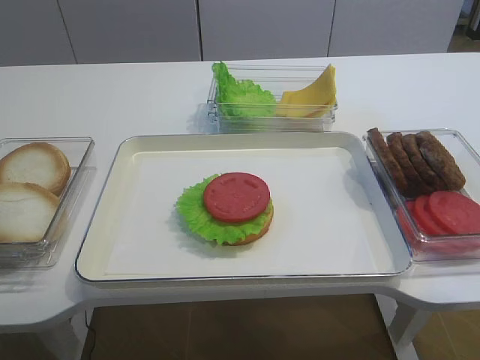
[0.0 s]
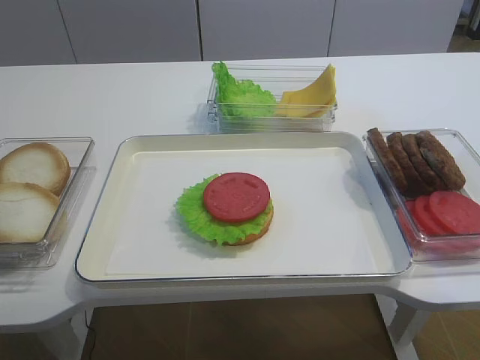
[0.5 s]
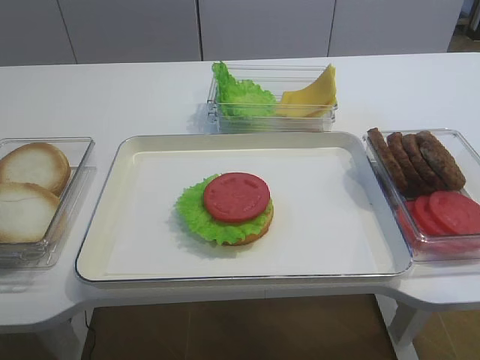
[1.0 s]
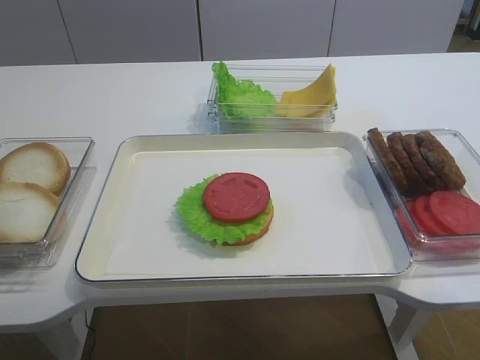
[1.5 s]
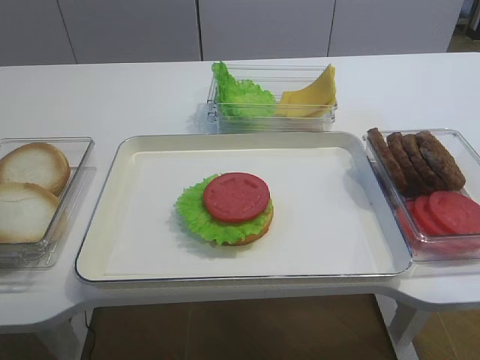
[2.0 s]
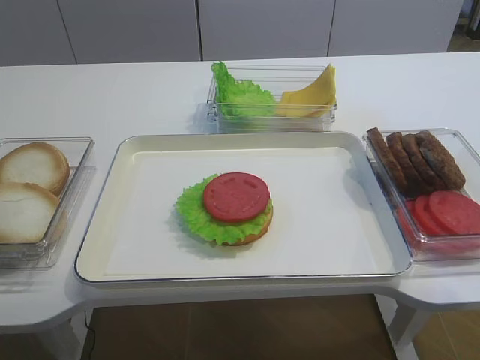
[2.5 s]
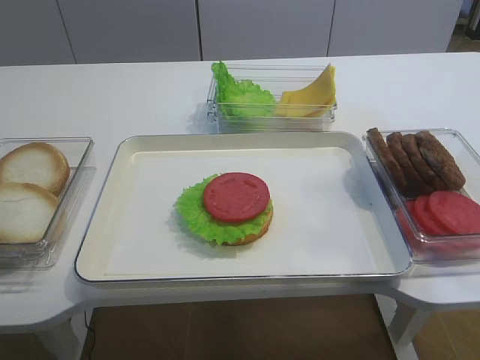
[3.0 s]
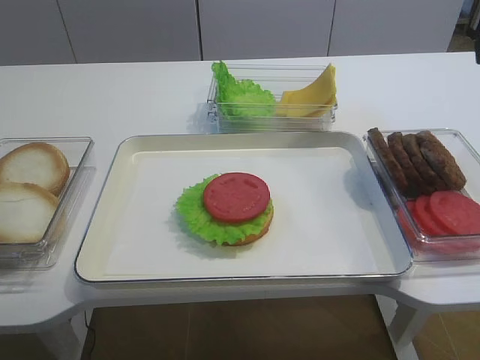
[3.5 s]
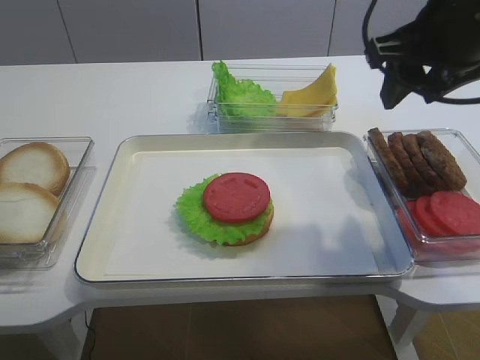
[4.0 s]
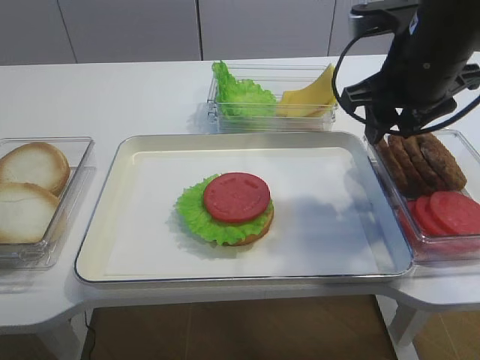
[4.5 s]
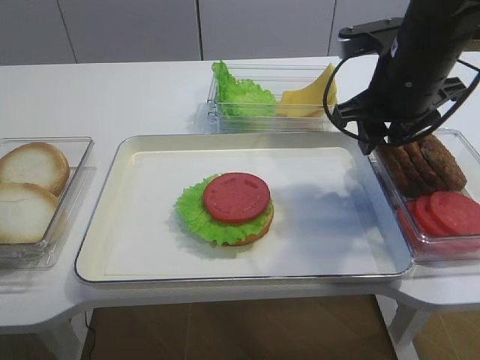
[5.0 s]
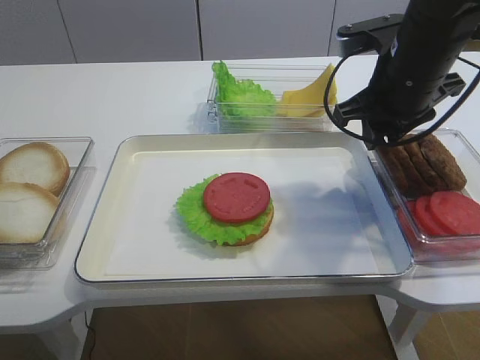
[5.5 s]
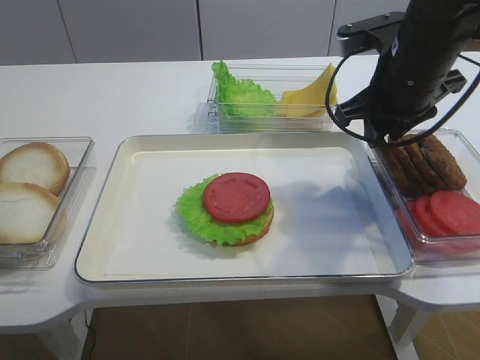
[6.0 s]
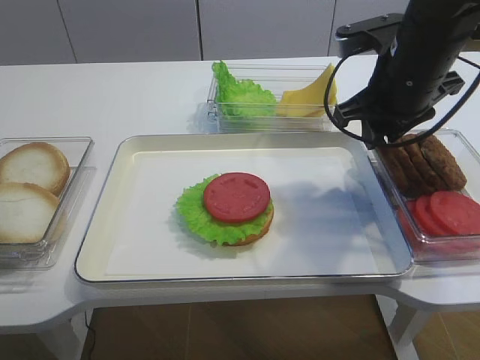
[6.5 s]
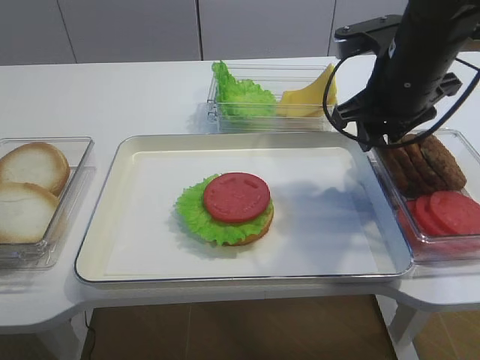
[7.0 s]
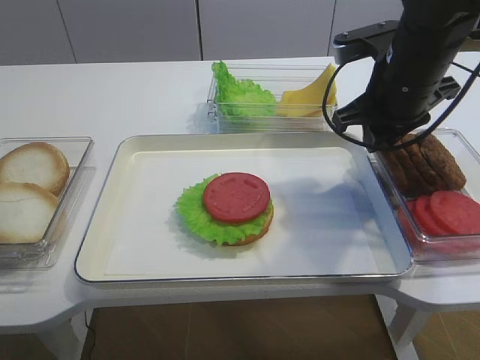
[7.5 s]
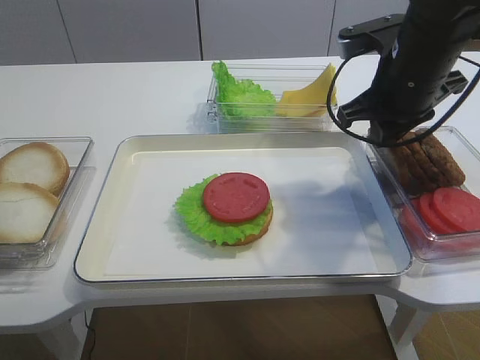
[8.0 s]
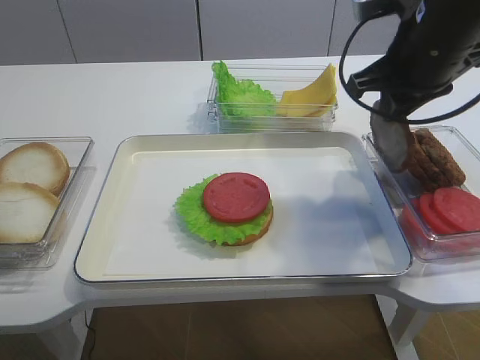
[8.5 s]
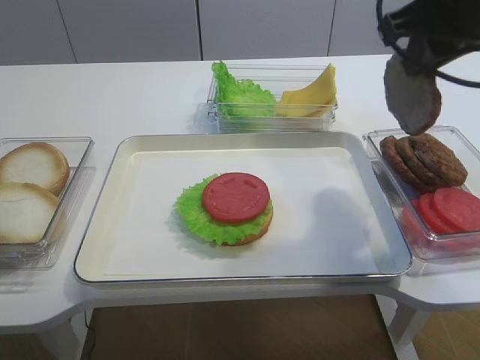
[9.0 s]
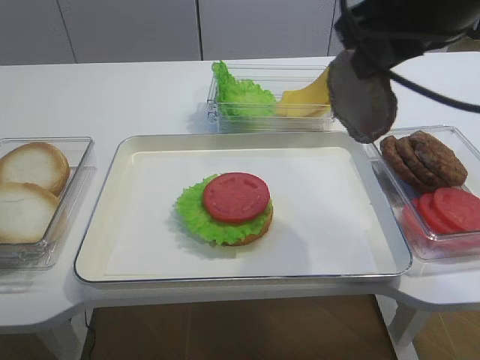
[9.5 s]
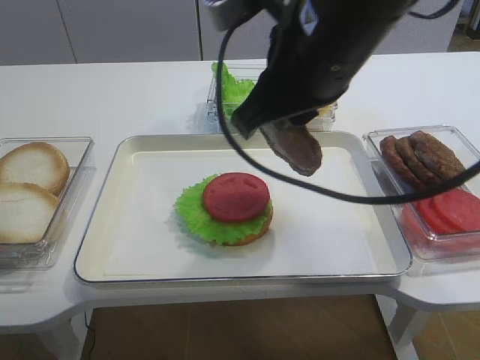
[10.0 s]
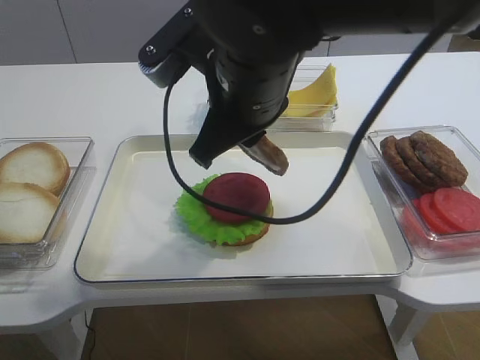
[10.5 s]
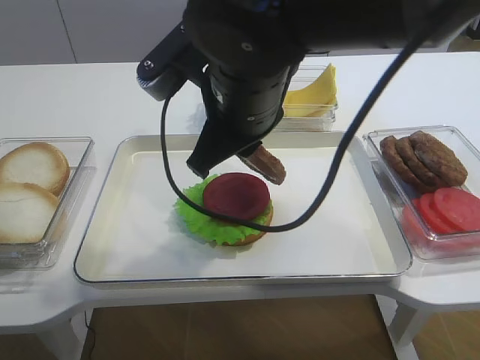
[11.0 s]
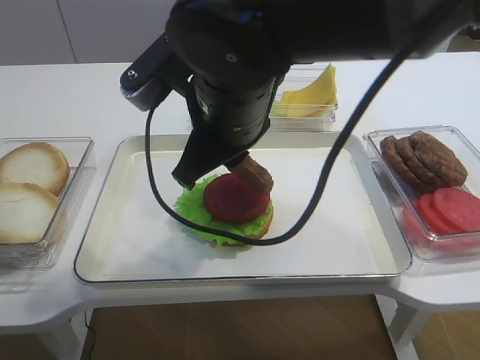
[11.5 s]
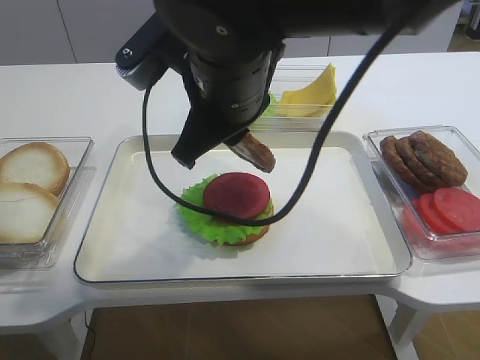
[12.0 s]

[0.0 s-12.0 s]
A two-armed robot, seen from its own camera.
Step, 0.0 to 8.5 s: Pick up the cutlet with the right gripper.
2.0 to 4.0 s: The right gripper moves forward, about 30 cm, and opens.
4.0 to 6.0 s: The right gripper goes roughly 10 cm downward and forward.
6.0 to 8.0 s: The two grippers keep their place.
8.0 to 10.0 s: The right gripper is displaced to the left, backward and upward by about 15 cm.
10.0 to 12.0 s: The right gripper travels to the left by approximately 5 cm.

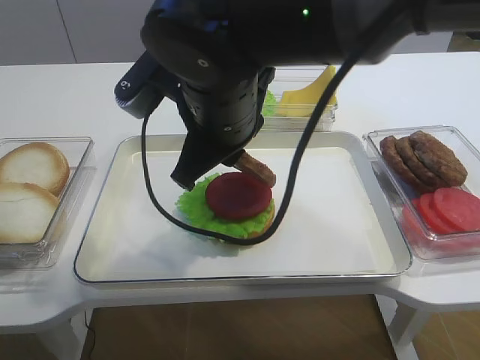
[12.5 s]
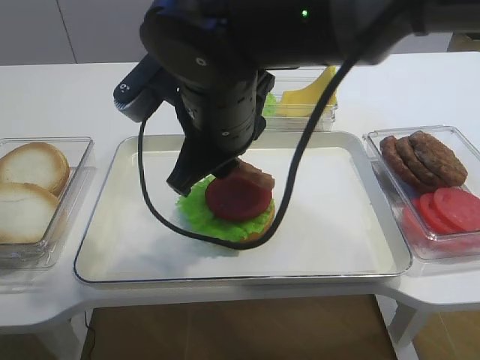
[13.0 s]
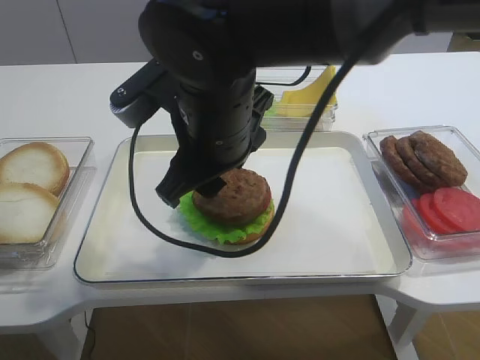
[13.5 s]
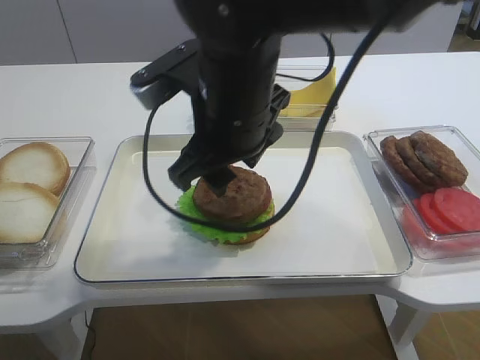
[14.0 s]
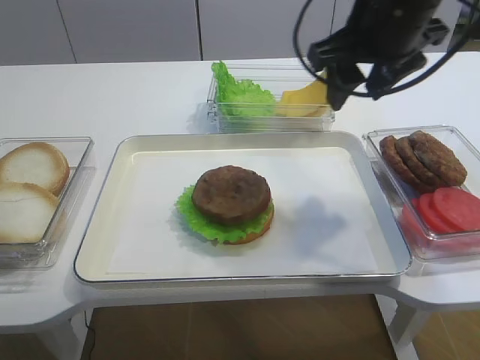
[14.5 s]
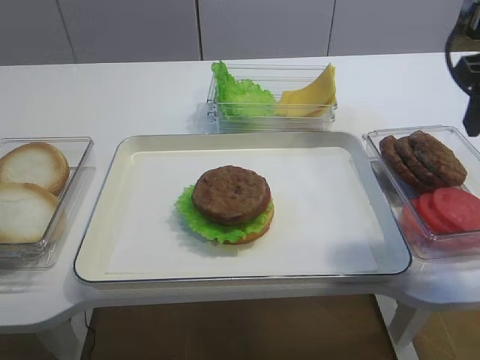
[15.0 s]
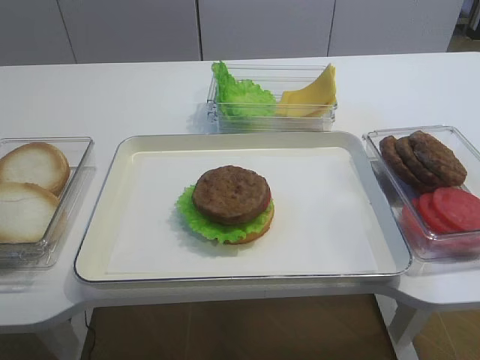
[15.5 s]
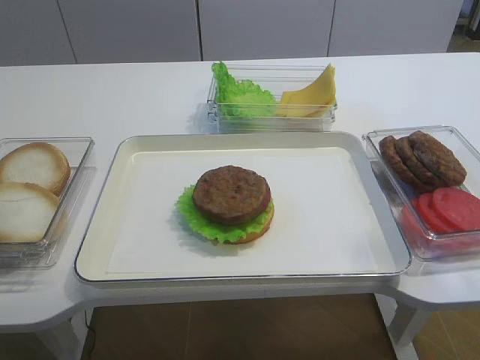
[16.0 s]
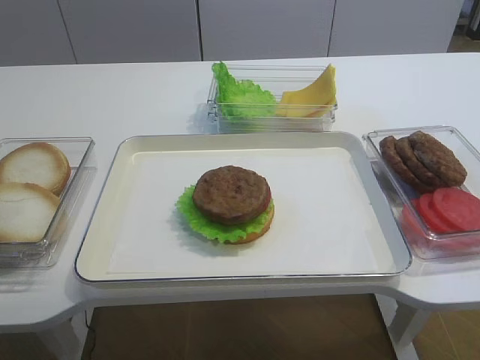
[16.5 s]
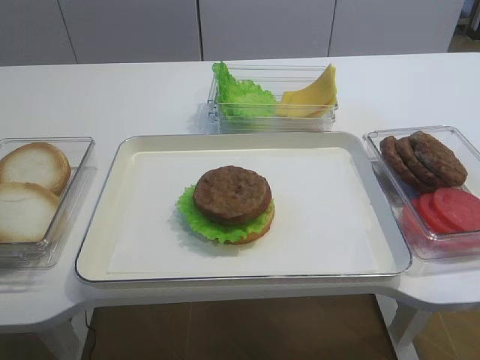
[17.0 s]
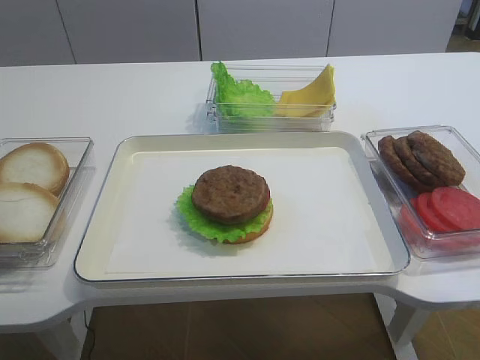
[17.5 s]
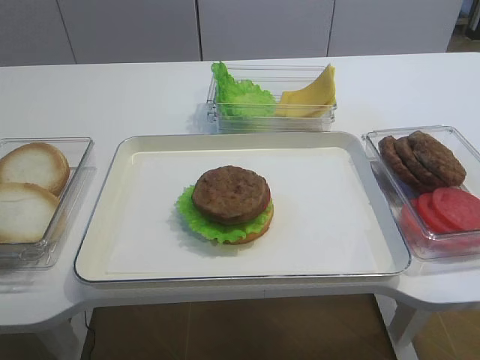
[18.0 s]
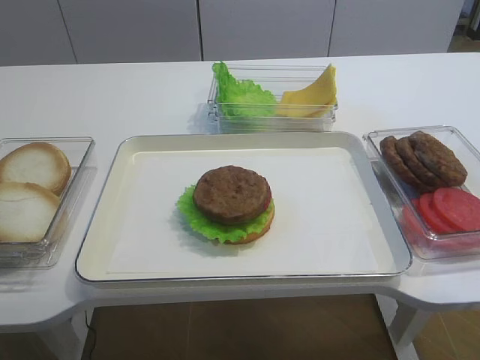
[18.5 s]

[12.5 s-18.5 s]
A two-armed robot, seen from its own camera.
12.5 to 14.5 s: The right gripper goes roughly 15 cm to the right and forward, and opens its fingers.
14.5 to 16.5 s: The right gripper heads backward and to the right, covering some 40 cm.

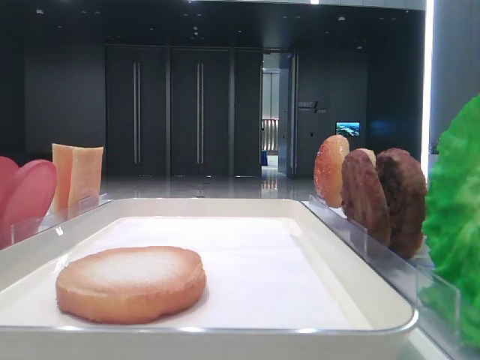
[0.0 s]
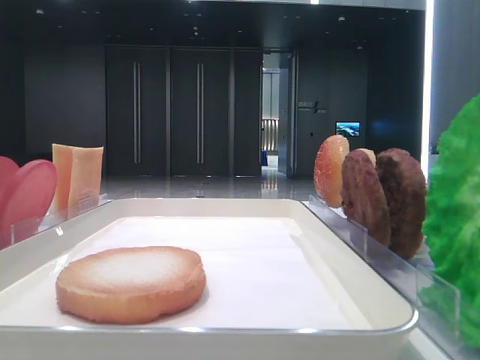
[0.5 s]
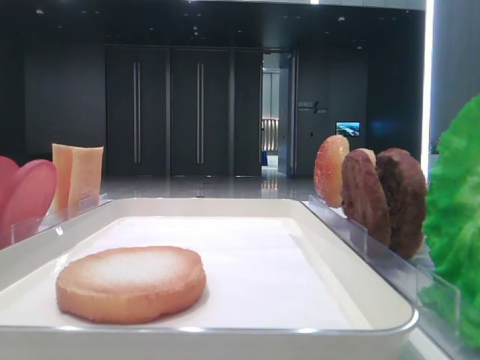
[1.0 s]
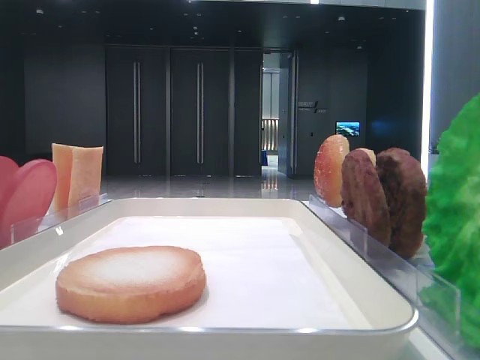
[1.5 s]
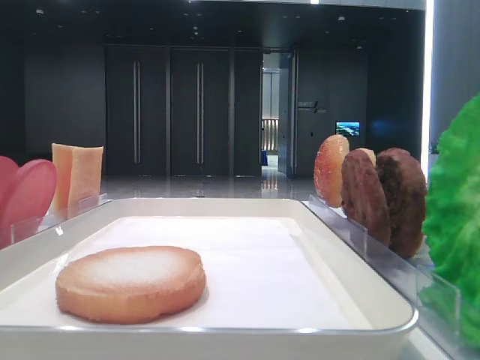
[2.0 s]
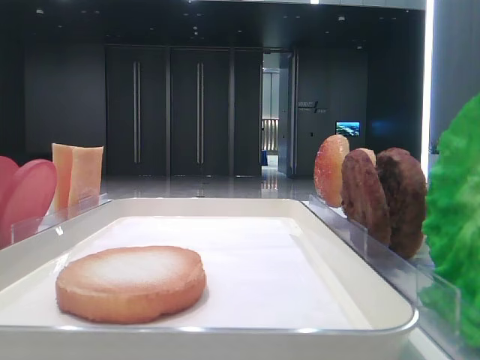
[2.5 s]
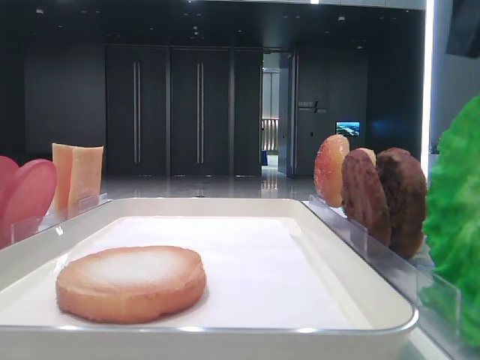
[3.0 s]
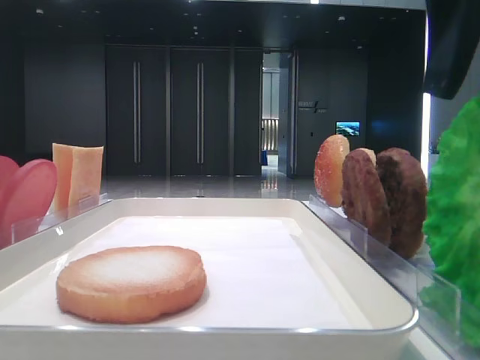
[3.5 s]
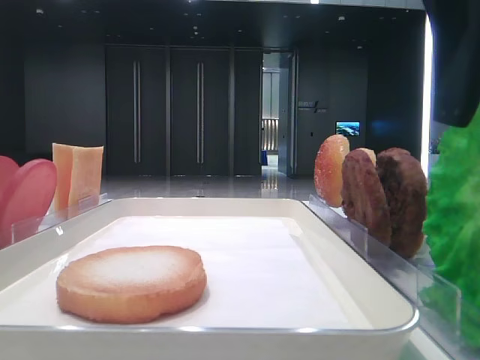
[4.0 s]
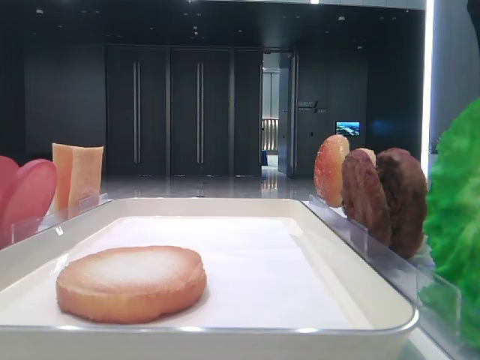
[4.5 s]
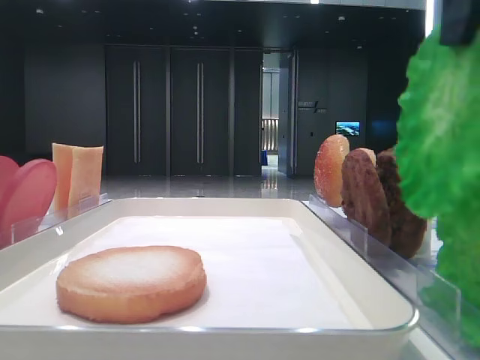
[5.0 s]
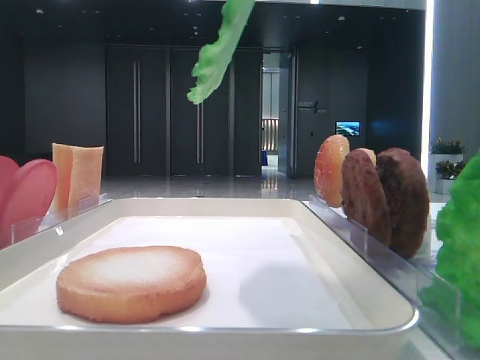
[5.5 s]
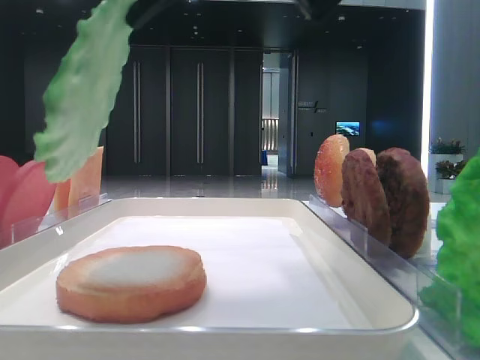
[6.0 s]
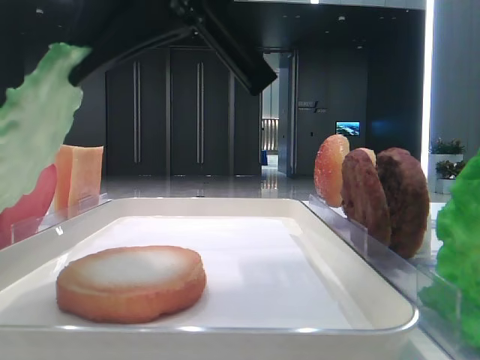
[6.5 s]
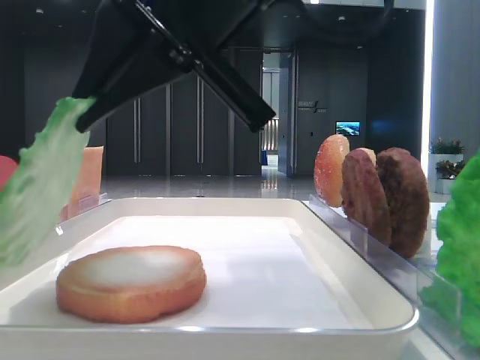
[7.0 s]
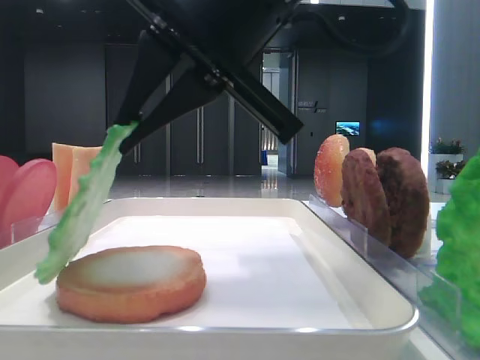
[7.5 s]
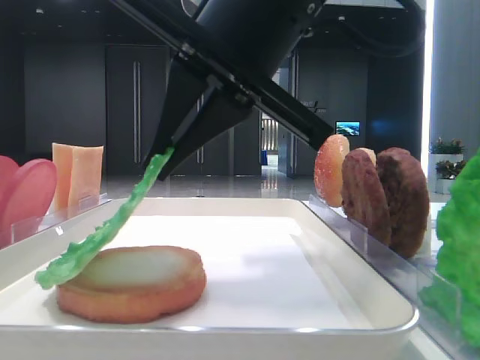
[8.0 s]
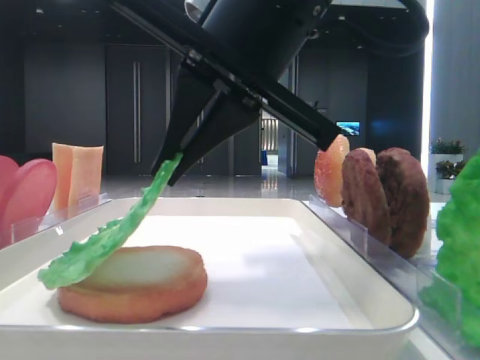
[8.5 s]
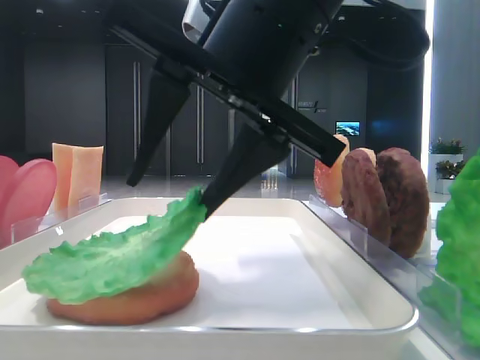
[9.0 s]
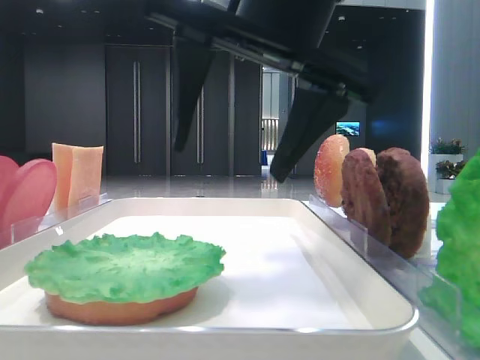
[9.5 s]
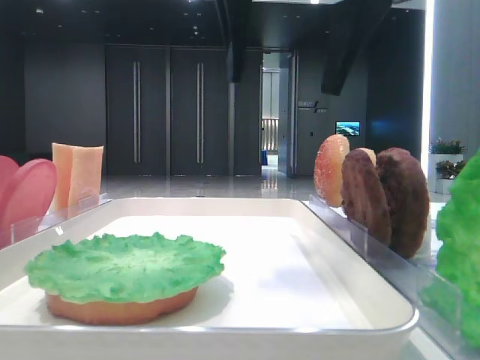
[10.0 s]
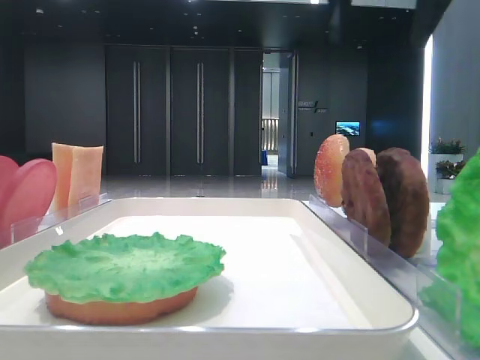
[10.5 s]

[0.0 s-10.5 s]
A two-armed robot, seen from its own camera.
Step, 0.0 to 4.0 s: Grab the lettuce leaf with the right hand.
Step, 4.5 to 9.0 s: Place the lettuce leaf on the bottom bread with the right hand.
2.0 to 4.0 s: The right gripper goes some 15 cm to the left, downward and forward.
4.0 to 6.5 s: The right gripper goes some 15 cm to the left, and closes up.
6.5 to 8.5 s: The grippers move only a little.
8.5 to 10.5 s: The right gripper is displaced upward, to the right and forward by roughly 20 cm, and opens up.
